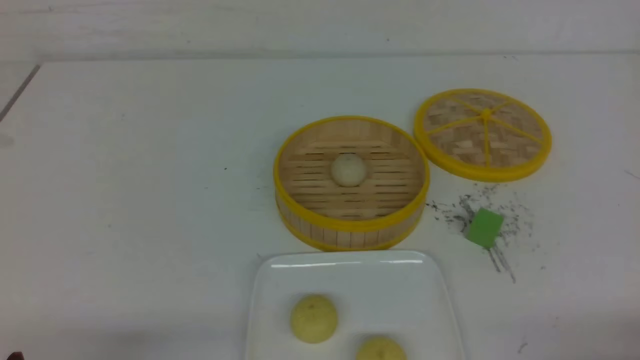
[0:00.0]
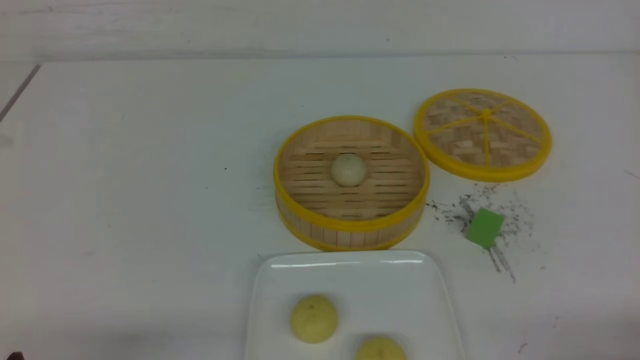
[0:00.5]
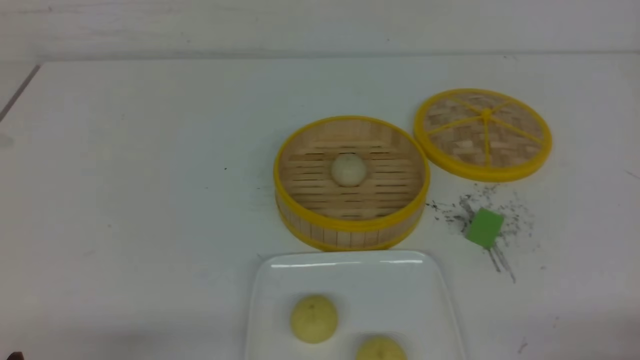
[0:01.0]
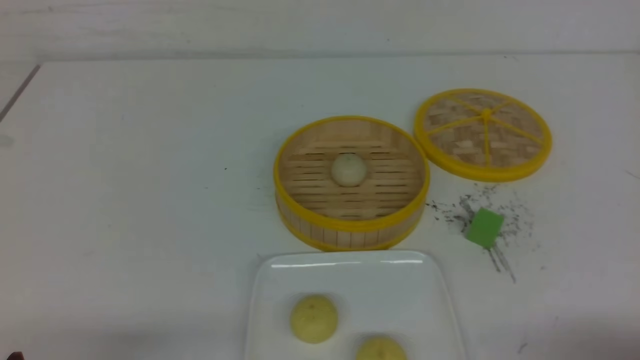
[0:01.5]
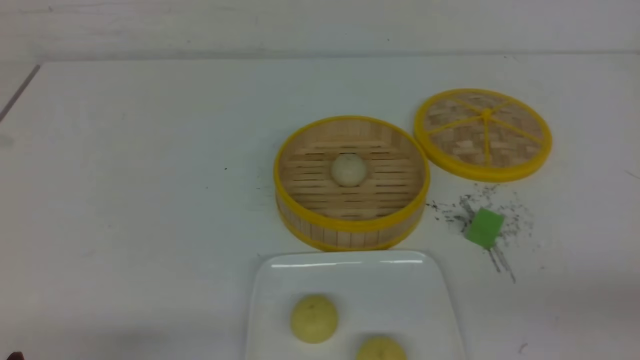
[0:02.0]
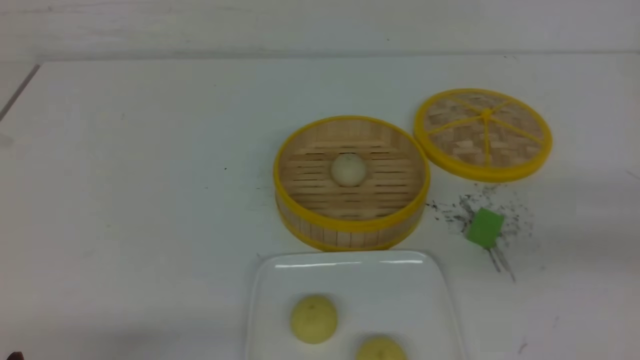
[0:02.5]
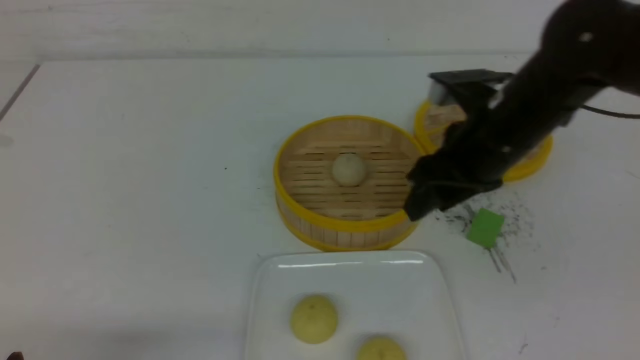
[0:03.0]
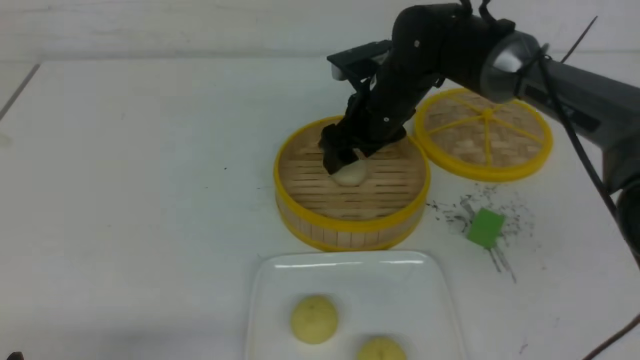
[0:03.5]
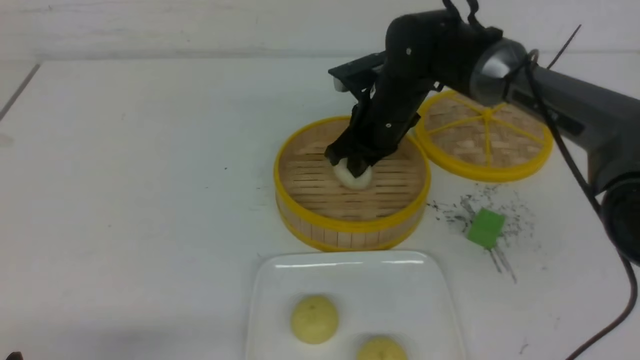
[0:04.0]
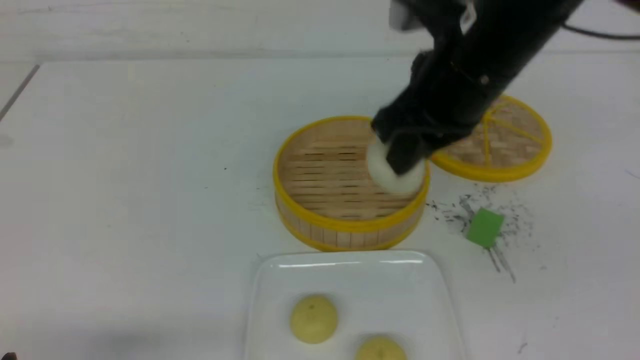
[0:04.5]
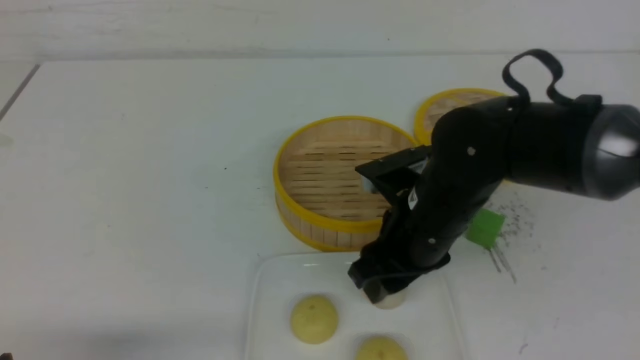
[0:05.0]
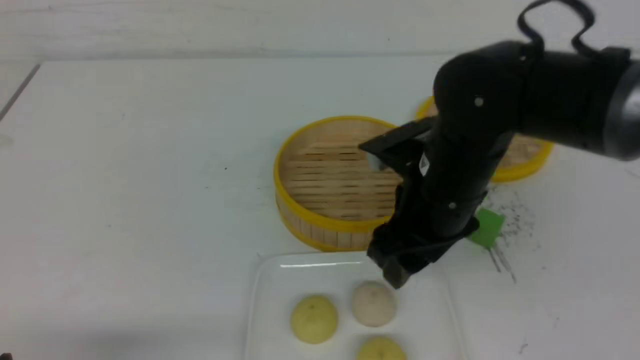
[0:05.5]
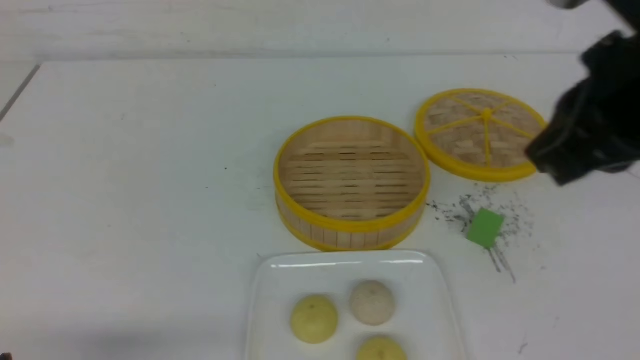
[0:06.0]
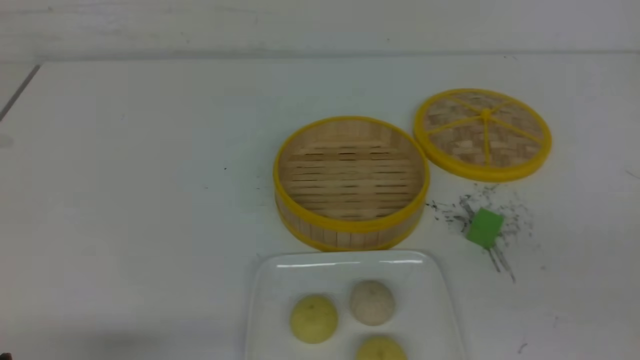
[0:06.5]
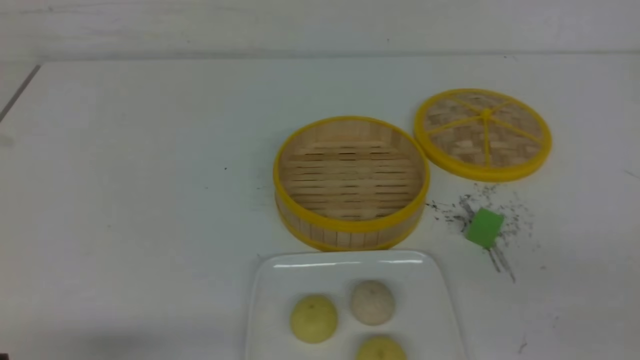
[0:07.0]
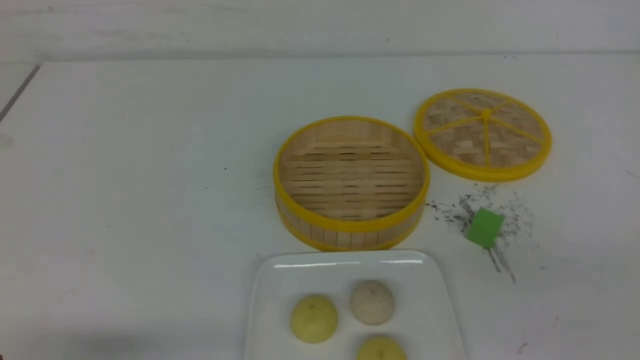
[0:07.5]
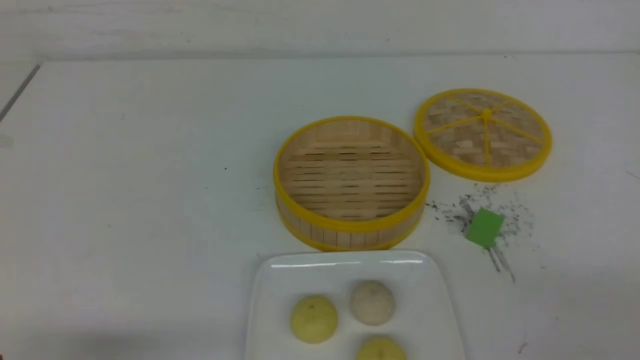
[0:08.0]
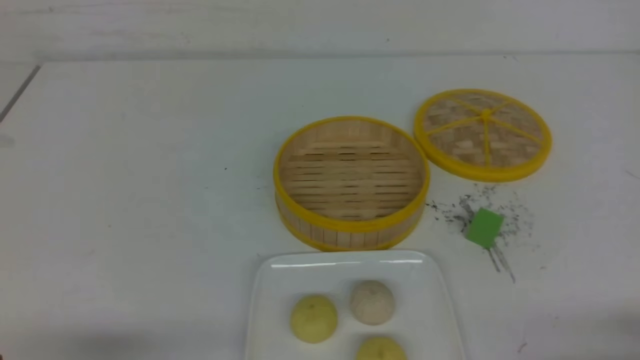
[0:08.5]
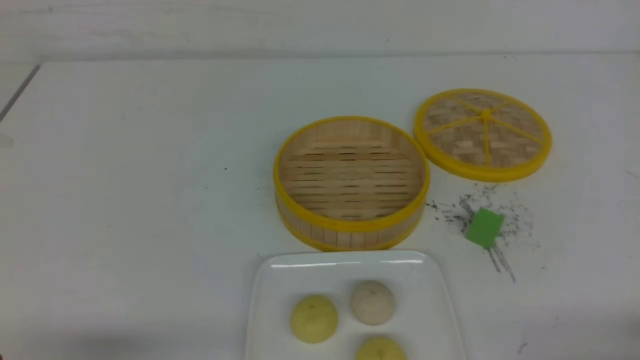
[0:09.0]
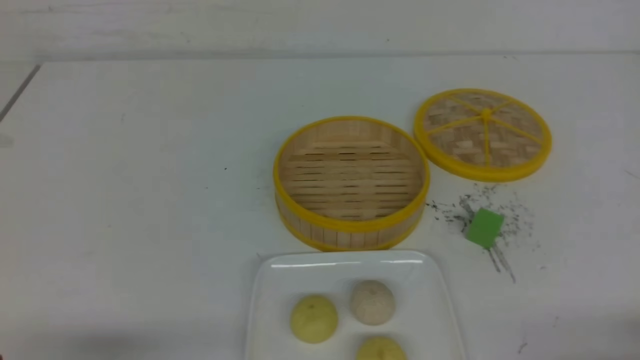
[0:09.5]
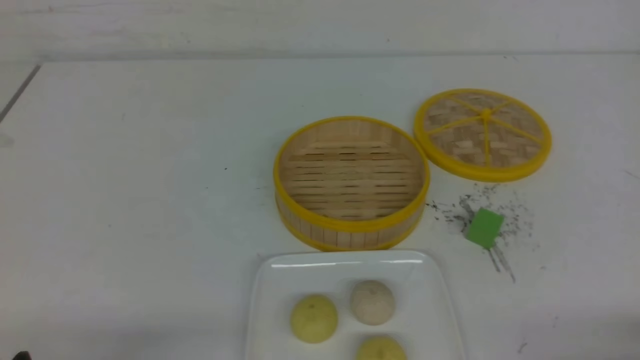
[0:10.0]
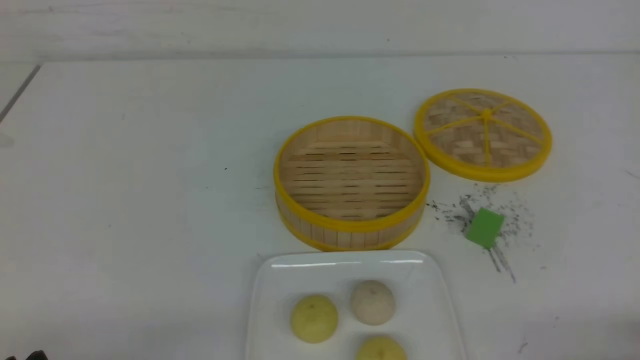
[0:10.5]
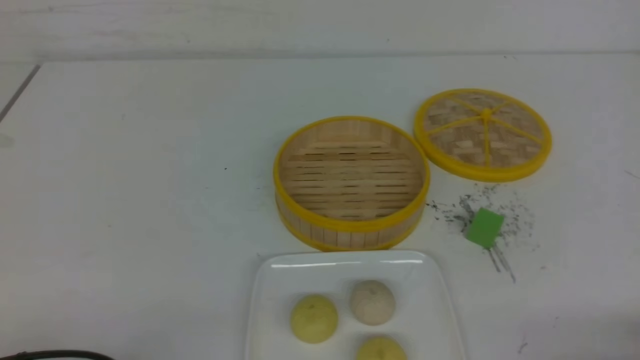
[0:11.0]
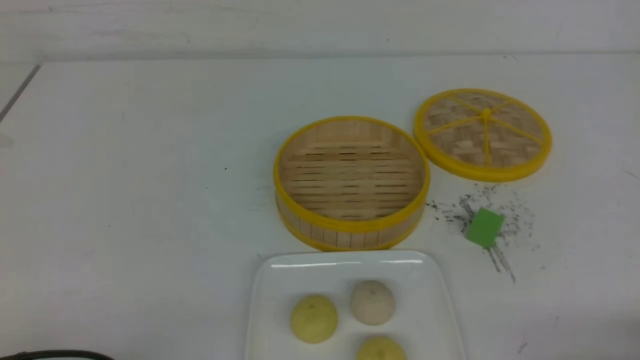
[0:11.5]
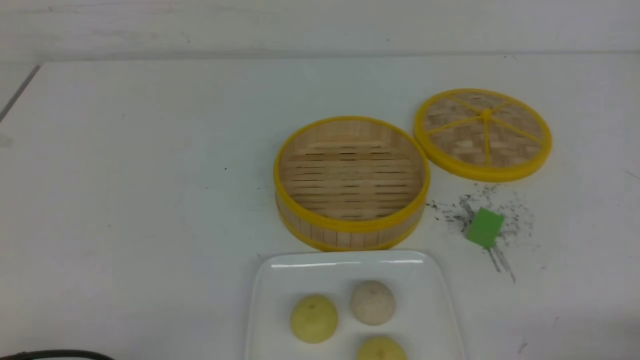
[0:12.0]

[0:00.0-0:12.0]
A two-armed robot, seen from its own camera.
Step, 0:00.0 to 0:03.5: use the right arm to grab the steamed stuffed bun that is closest to it.
Step, 0:04.0 to 0:05.0: use the right arm to put the steamed stuffed bun into the plate.
0:00.0 to 0:02.0: The right gripper heads upward, covering some 10 cm.
0:02.0 to 0:04.0: The right gripper goes roughly 40 cm forward and to the left, and opens, then closes once more.
0:04.0 to 0:06.0: The right gripper goes roughly 30 cm backward, upward and to the right, and opens, then closes once more.
0:06.0 to 0:08.0: The right gripper heads downward, backward and to the right, covering approximately 25 cm.
